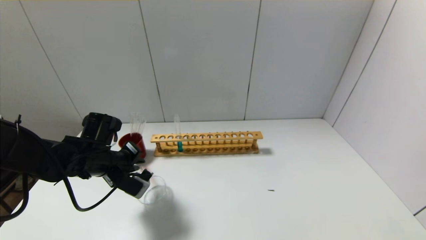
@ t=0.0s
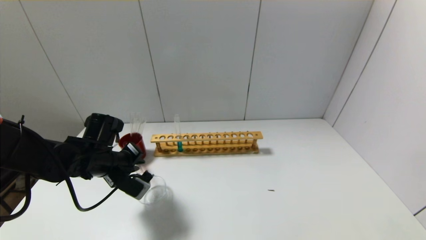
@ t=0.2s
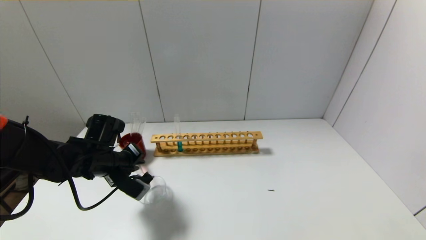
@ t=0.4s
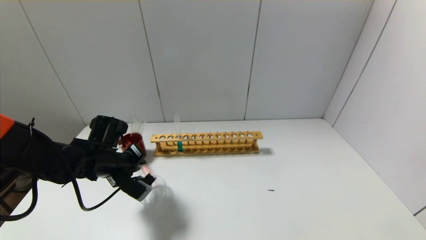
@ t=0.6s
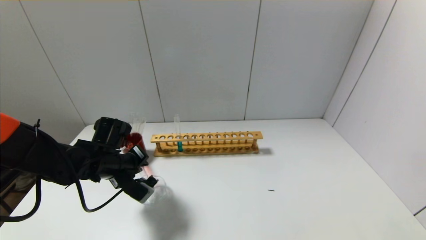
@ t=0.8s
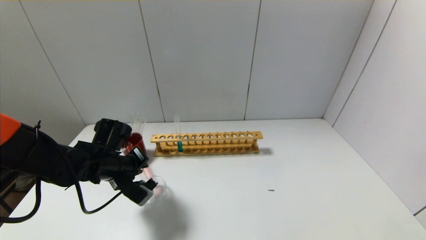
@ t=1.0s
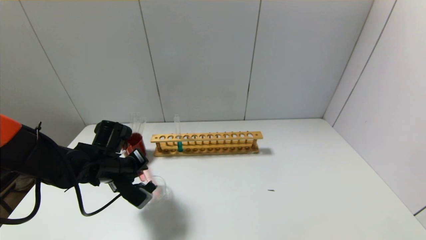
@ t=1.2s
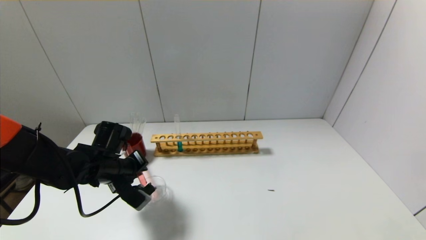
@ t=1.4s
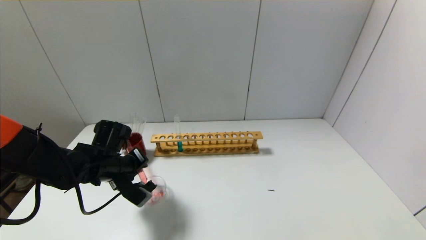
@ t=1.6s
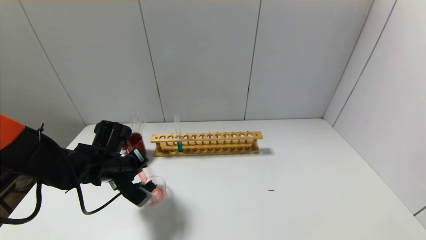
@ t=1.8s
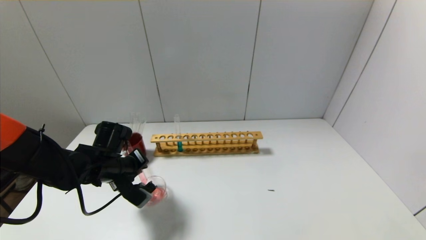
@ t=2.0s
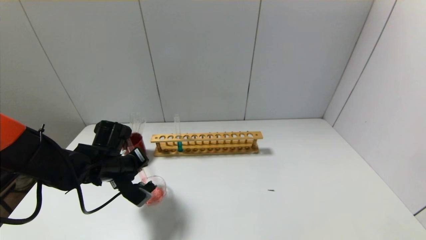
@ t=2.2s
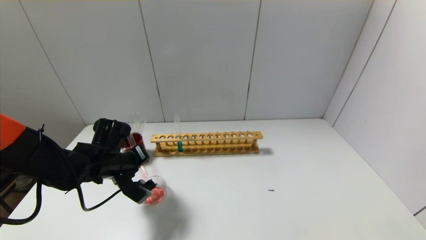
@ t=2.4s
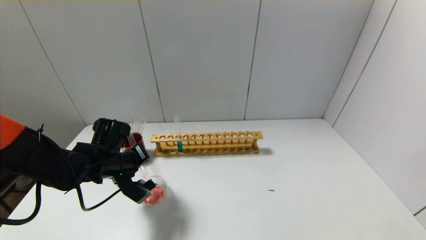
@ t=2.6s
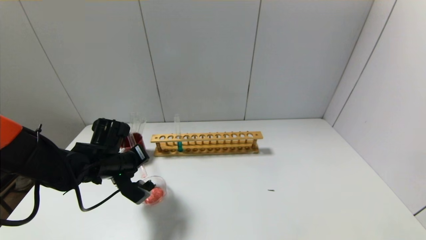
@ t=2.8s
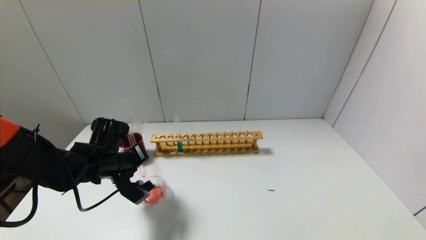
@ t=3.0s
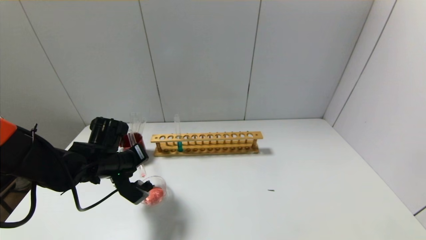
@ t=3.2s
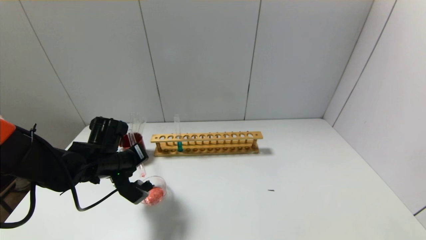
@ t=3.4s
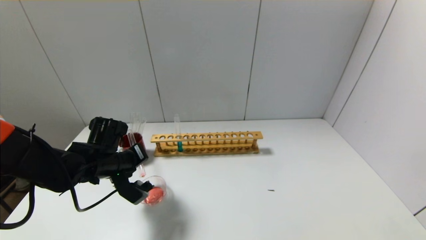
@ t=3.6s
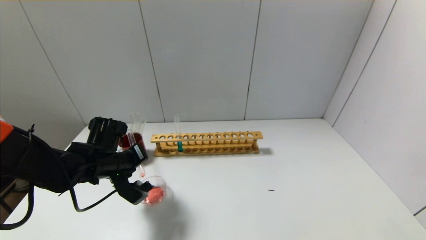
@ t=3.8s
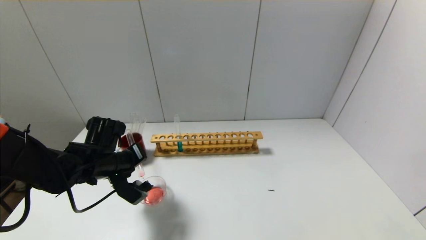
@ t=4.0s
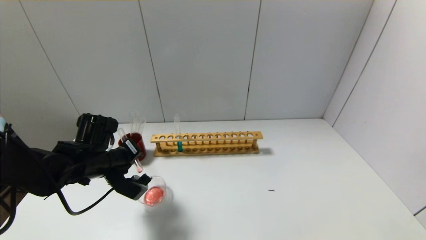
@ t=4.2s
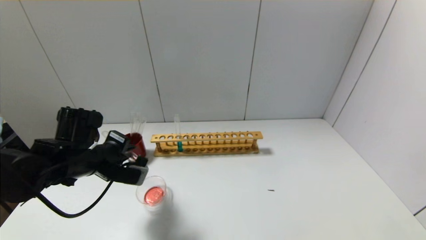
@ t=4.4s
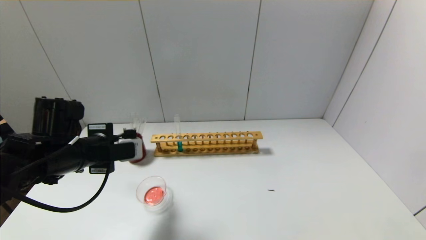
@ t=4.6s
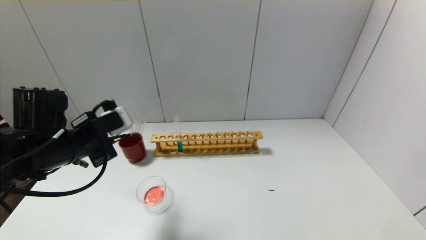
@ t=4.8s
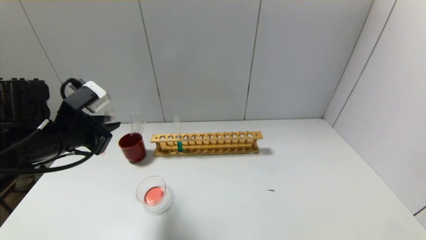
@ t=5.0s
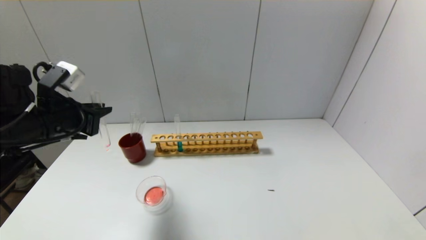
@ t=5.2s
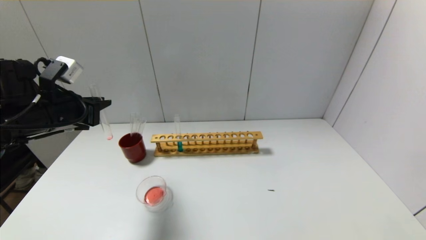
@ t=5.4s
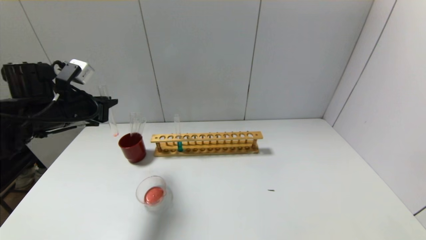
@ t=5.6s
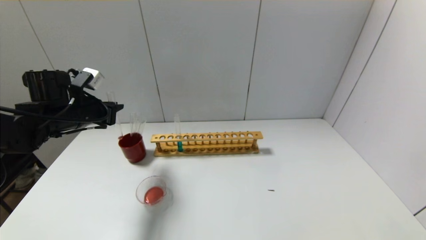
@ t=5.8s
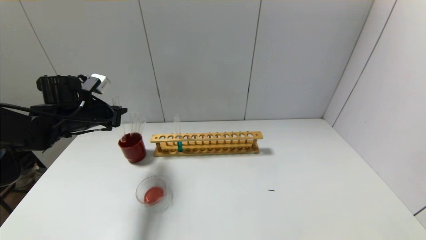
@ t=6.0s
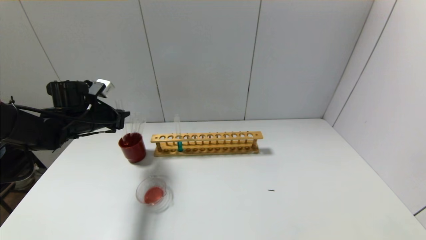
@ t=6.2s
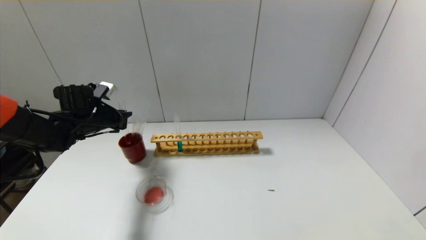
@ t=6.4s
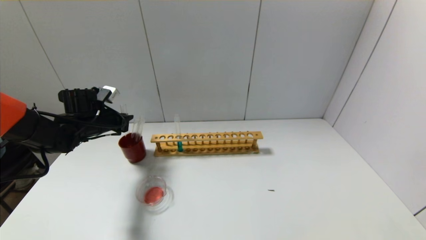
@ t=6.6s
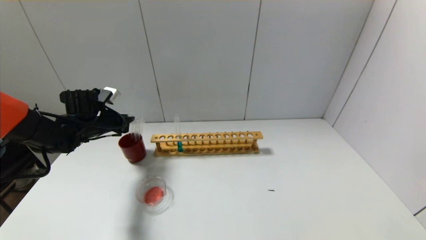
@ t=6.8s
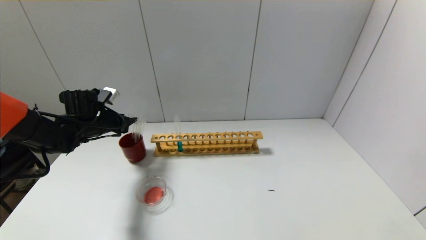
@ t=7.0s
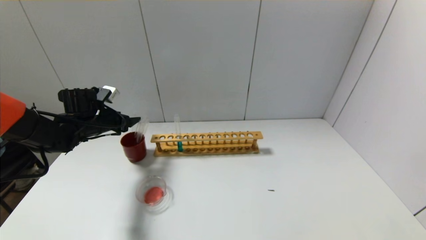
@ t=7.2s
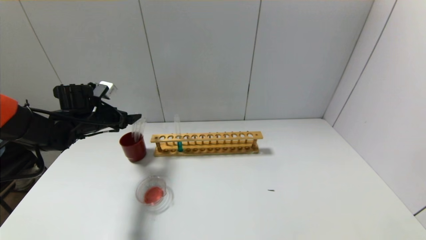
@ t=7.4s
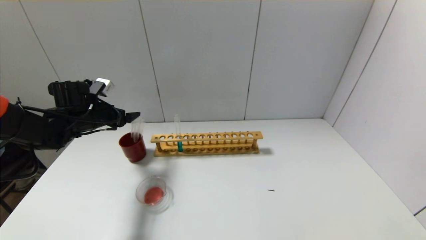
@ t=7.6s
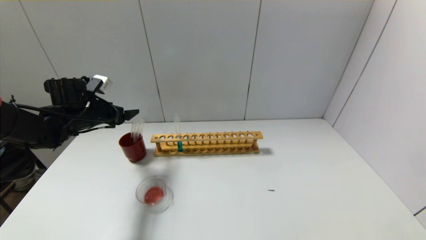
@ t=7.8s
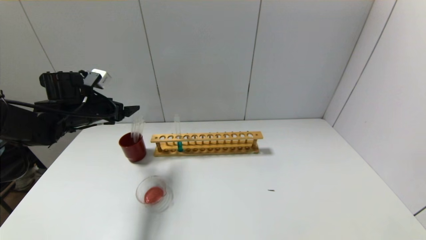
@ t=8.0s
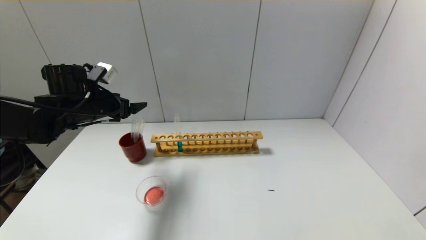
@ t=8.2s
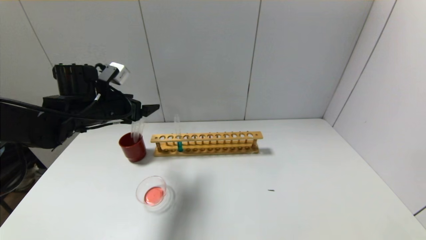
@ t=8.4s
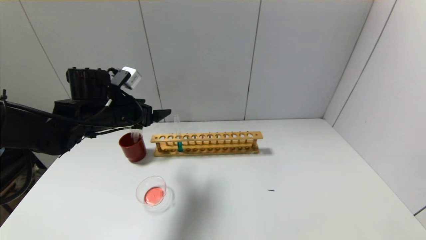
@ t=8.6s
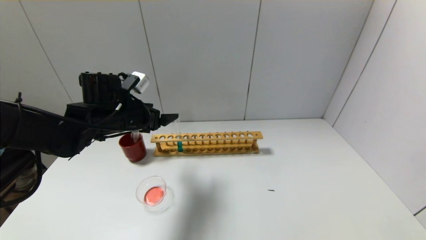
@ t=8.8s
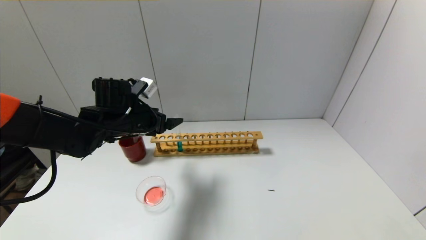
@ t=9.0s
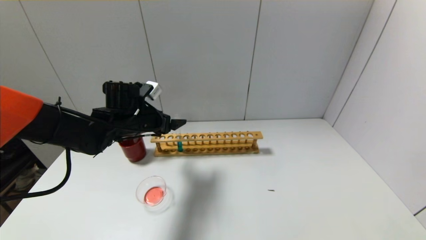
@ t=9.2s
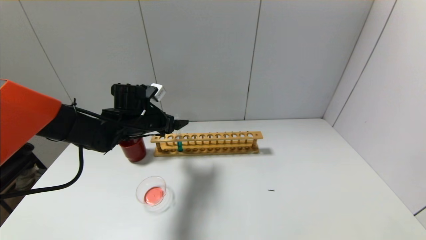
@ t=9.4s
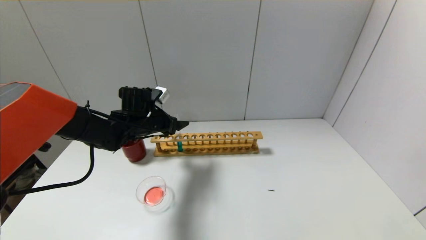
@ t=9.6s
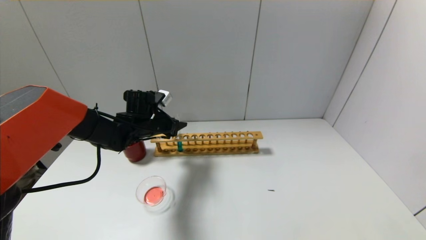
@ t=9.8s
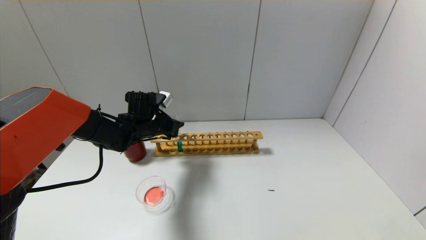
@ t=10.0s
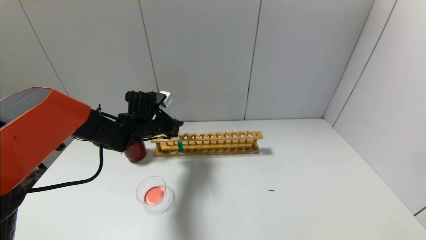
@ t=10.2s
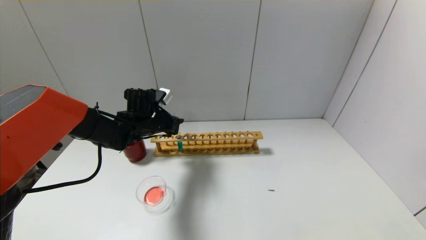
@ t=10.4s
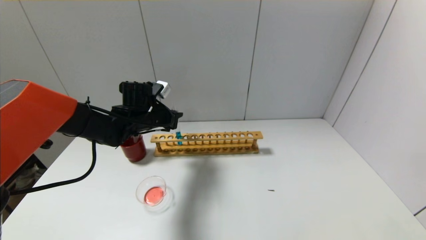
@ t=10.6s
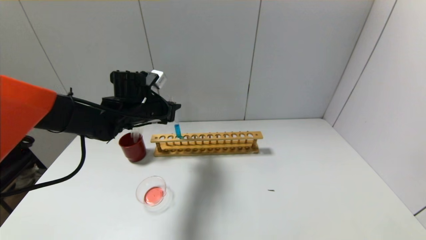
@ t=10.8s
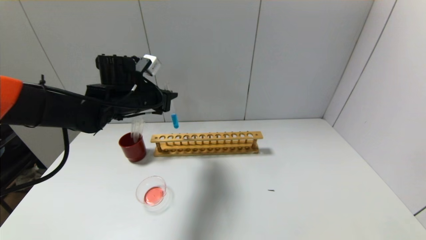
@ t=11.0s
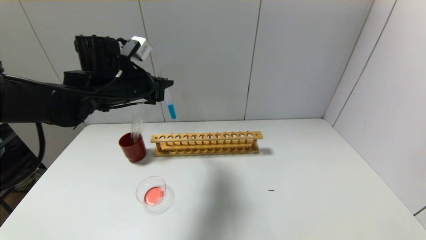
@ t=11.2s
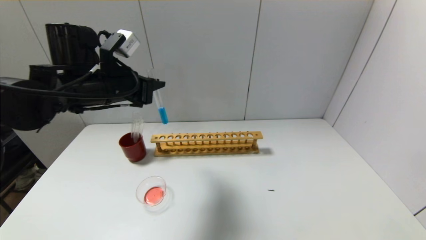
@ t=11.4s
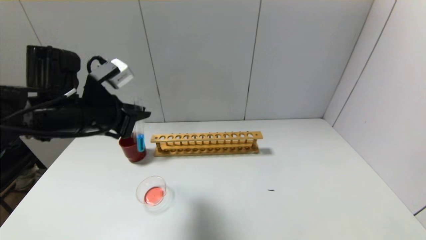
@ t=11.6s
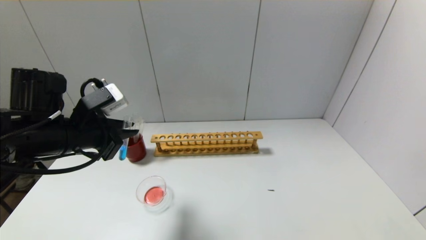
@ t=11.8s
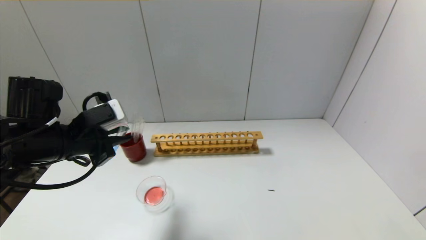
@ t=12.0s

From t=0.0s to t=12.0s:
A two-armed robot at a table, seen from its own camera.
Step, from t=0.0s to t=4.4s: Pour the red reagent into the graduated cylinder with the left gripper.
Step, from t=4.6s to t=6.8s: Place the test tube into the brown cup with the left gripper.
Step, from t=7.0s to t=10.0s: Grasp the blue reagent with the left gripper.
From t=0.0s to t=3.0s: There are only small adjustments of the grippers.
From t=3.0s to t=4.4s: The left gripper moves some 5 cm.
From t=4.4s to t=6.0s: The left gripper moves forward and to the left, some 10 cm.
From t=6.0s to t=7.6s: The left gripper opens its fingers.
From t=7.6s to t=9.0s: The left gripper travels to the right by roughly 10 cm.
From t=9.0s to t=10.4s: The left gripper travels forward by about 5 cm, and closes up.
From t=10.4s to t=12.0s: The left gripper goes some 20 cm backward, to the left and upward.

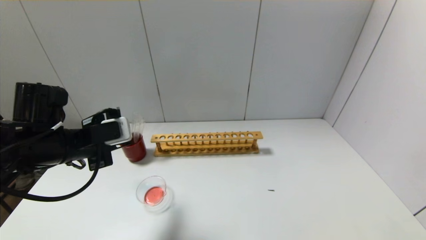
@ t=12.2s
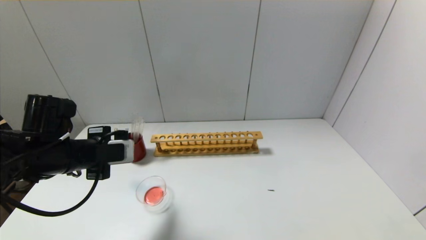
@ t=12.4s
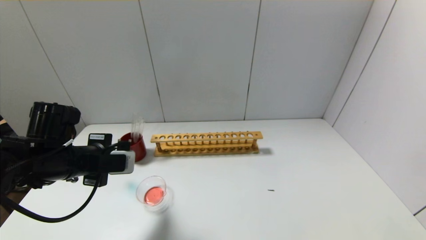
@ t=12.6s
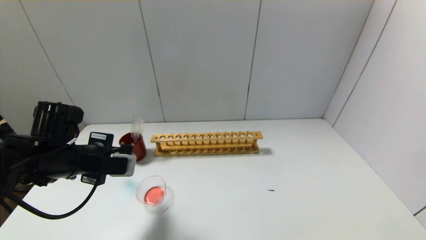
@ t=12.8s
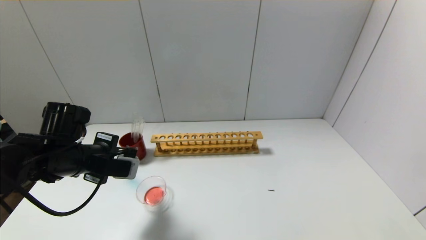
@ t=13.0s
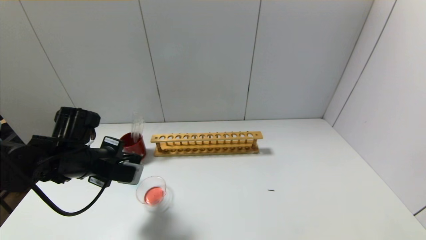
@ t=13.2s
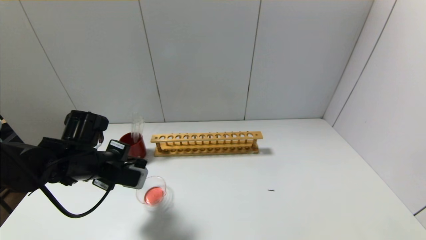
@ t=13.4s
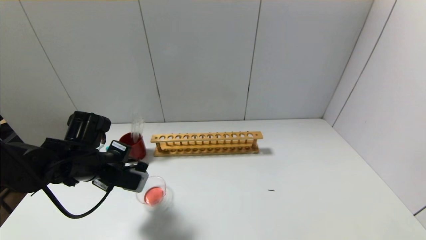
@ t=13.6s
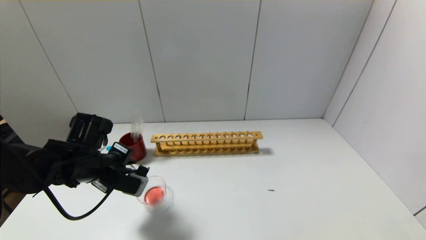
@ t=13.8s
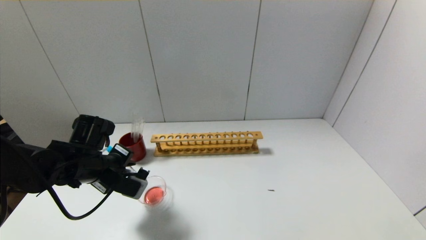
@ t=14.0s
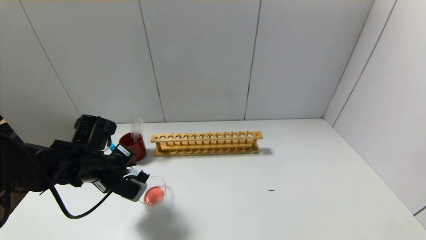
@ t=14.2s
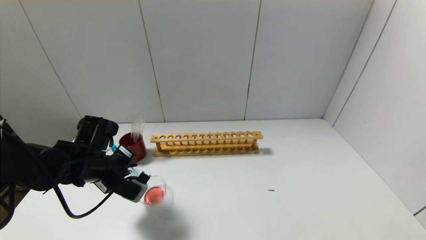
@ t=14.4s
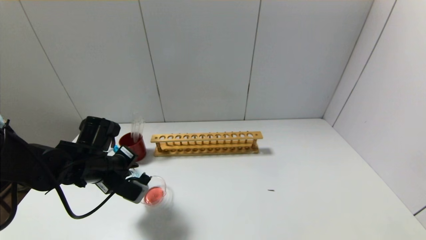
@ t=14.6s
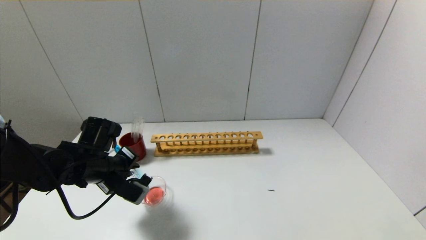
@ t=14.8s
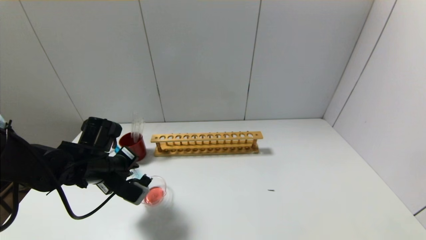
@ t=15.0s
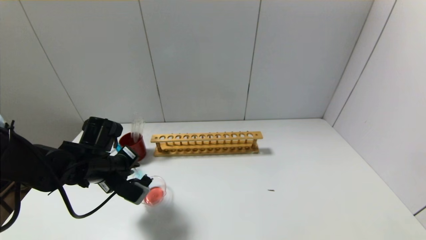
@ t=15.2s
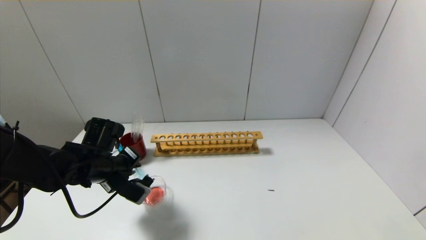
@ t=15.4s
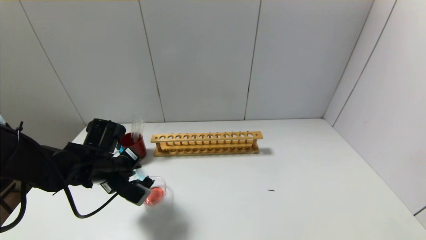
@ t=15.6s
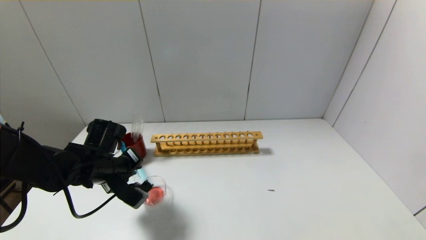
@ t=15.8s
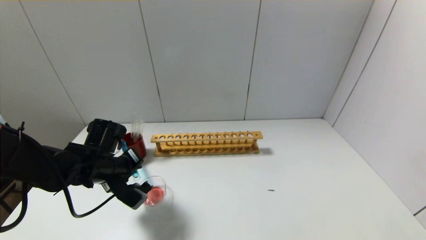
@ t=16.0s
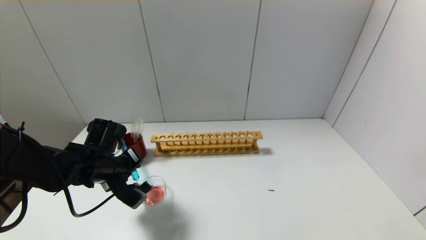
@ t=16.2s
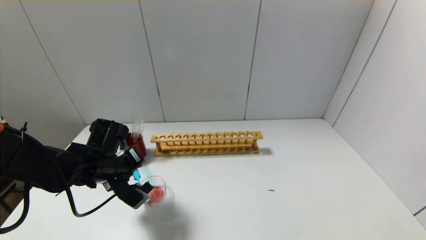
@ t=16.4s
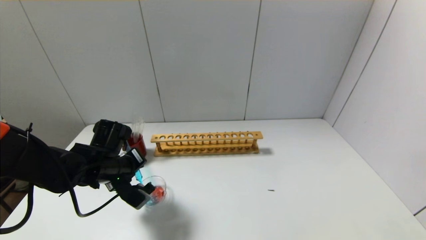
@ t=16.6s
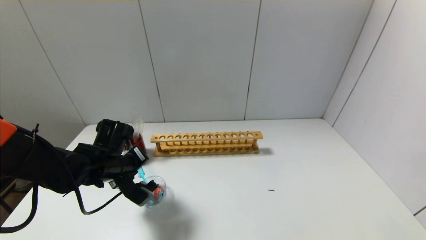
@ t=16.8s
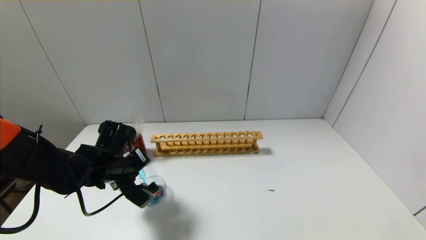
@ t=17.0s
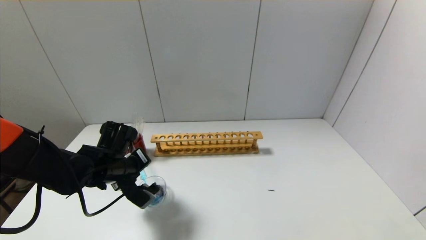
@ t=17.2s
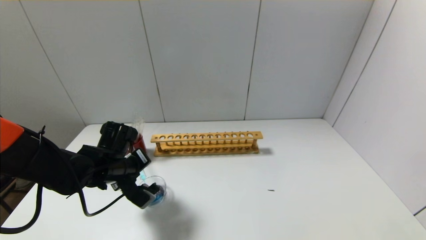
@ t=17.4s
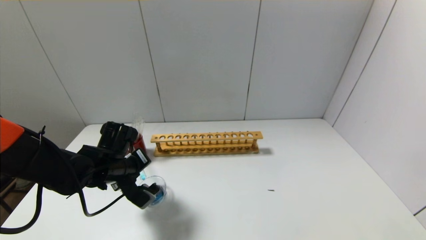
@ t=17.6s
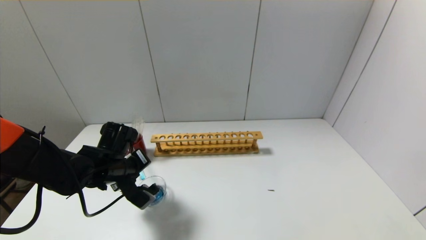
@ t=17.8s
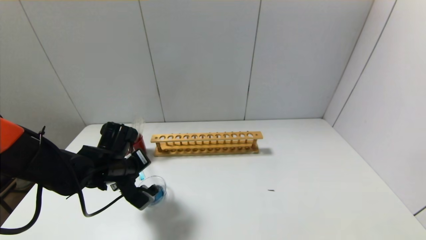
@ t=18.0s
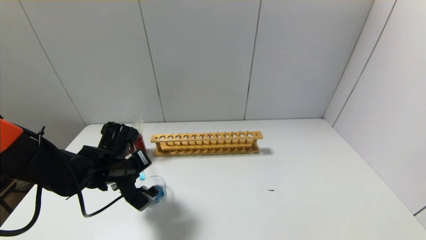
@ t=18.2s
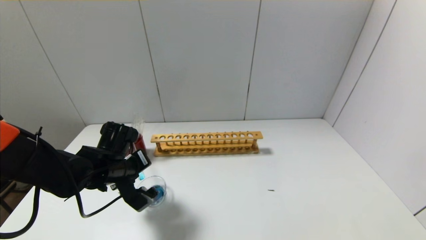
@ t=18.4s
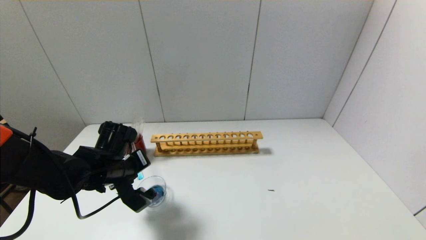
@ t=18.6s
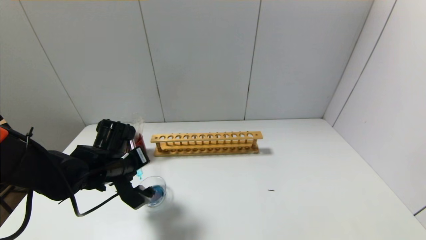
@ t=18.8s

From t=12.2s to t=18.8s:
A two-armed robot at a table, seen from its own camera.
From t=12.2s to t=13.8s: The left gripper moves downward, approximately 5 cm.
From t=13.8s to t=15.4s: The grippers make only small movements.
From t=15.4s to t=17.2s: The grippers move only a little.
From t=17.2s to t=18.8s: The grippers move only a little.
